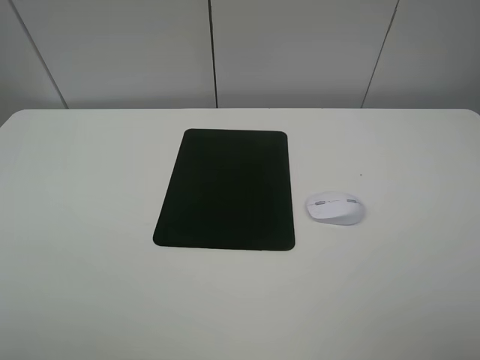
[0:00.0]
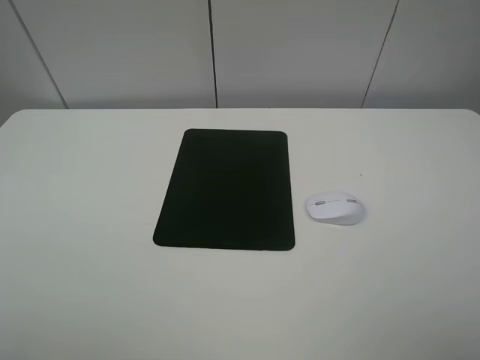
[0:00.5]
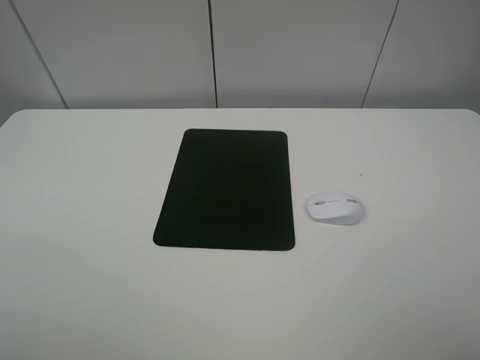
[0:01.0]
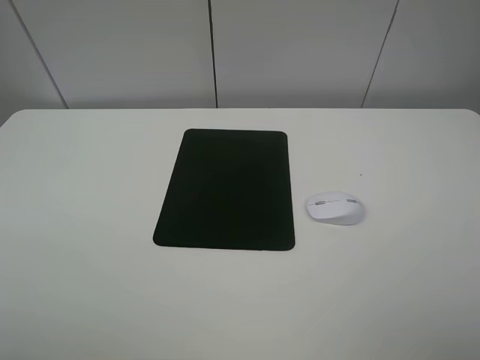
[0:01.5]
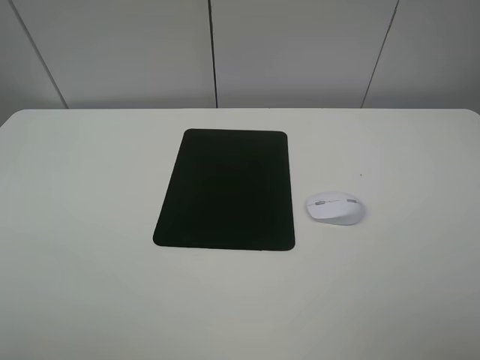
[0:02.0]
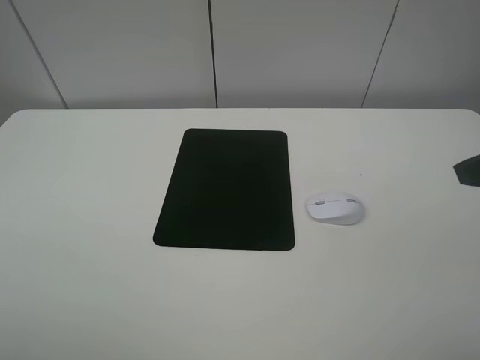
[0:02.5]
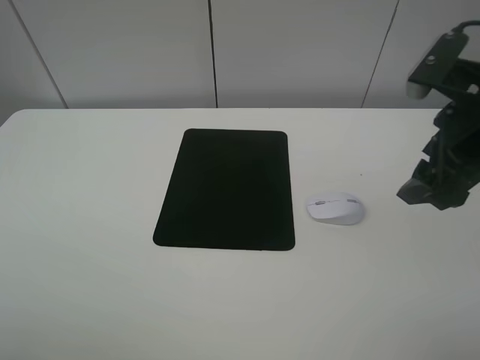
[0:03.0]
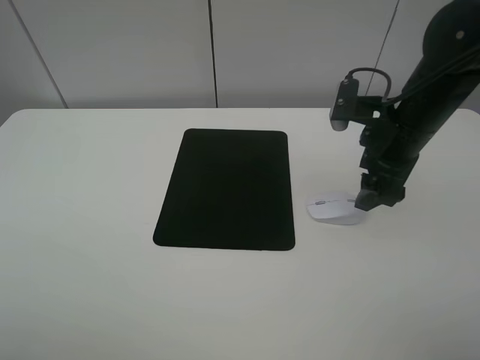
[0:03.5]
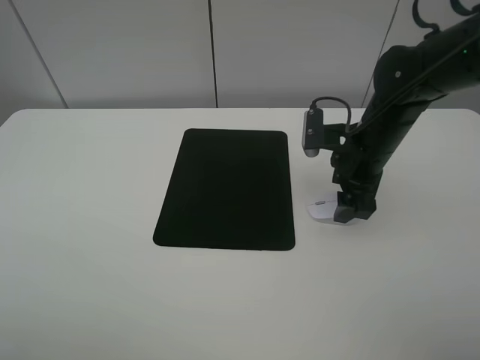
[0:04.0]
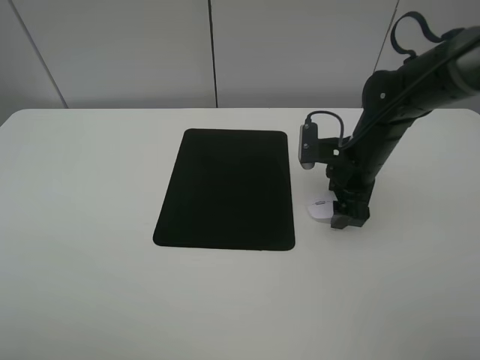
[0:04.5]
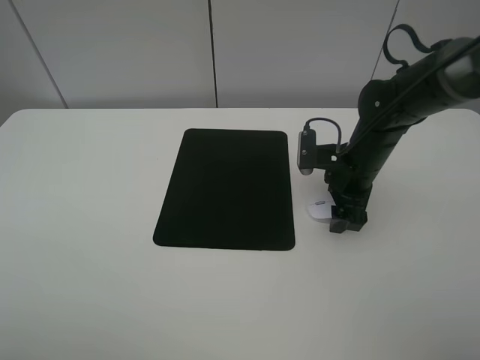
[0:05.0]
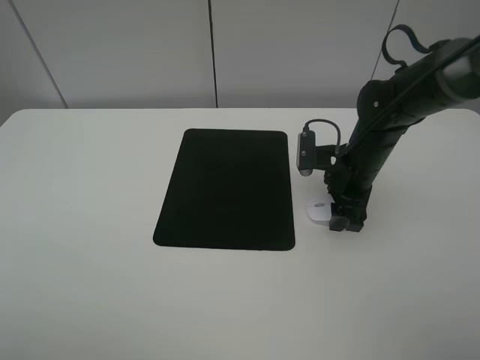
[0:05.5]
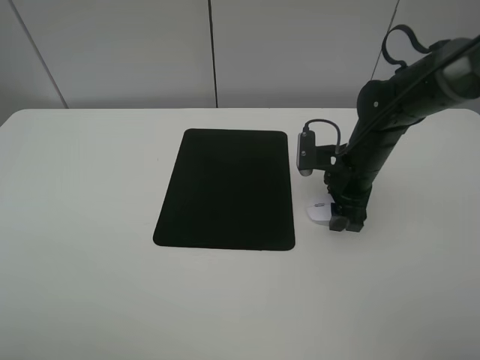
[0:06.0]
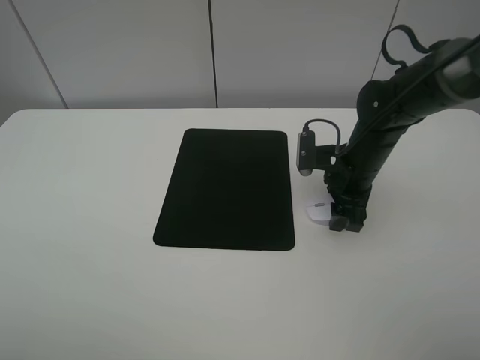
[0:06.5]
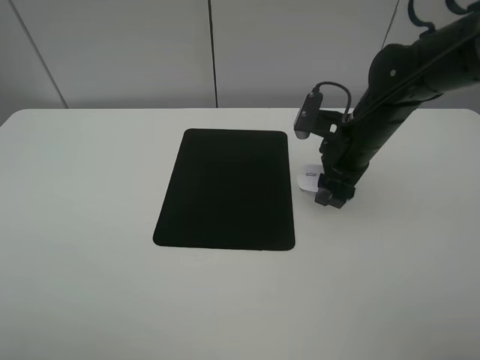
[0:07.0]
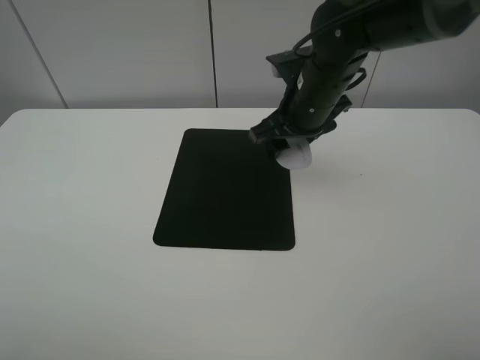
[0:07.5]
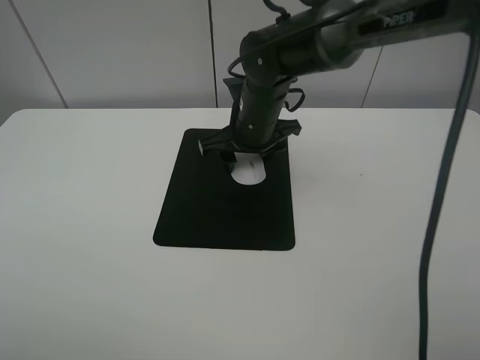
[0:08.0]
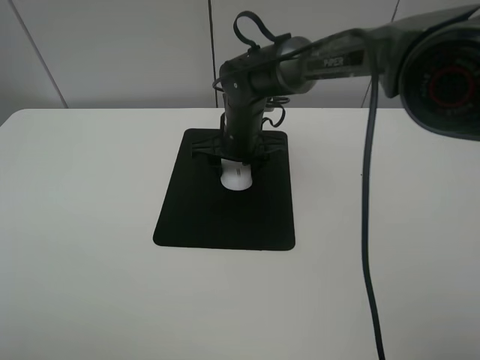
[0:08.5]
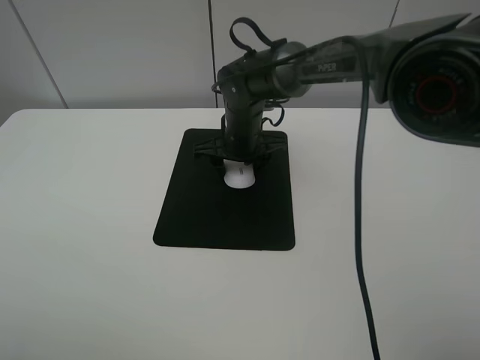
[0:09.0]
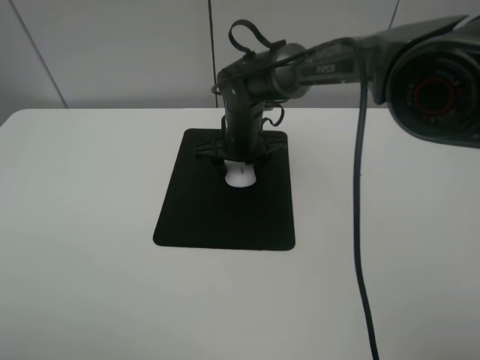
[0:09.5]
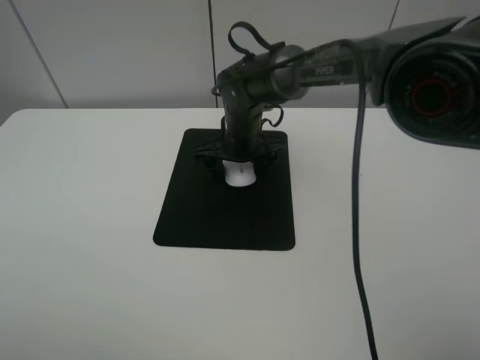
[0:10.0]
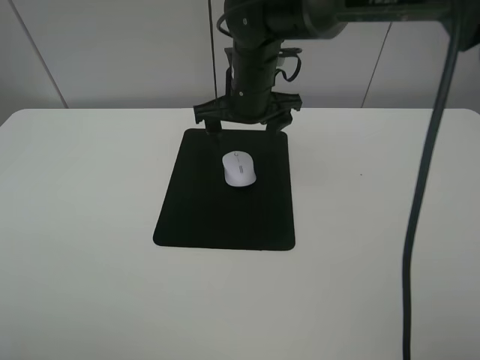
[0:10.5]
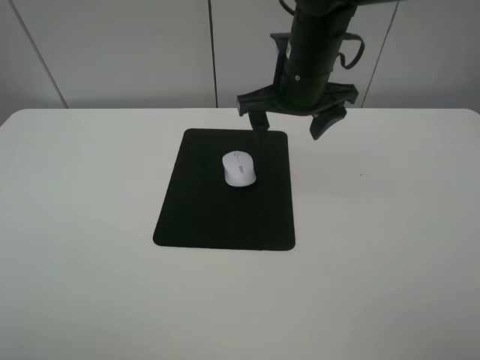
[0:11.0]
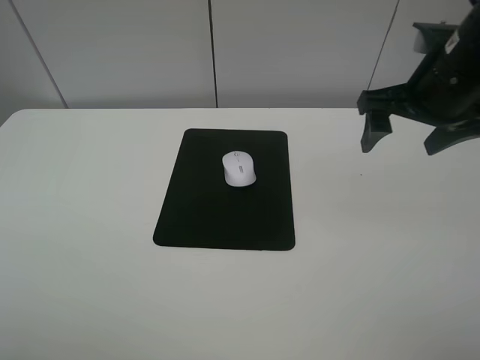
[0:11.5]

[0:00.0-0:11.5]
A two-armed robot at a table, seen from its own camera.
Step, 0:00.0 to 0:06.0: Grasp the mouse with the right gripper.
Step, 0:06.5 to 0:10.0: Place the mouse on the mouse mat with the right gripper.
0:02.0 to 0:04.0: The right gripper travels forward and downward by some 30 cm.
0:04.0 to 0:06.0: The right gripper closes up.
0:06.0 to 0:07.5: The right gripper moves upward and to the left, some 15 cm.
0:07.5 to 0:09.5: The right gripper heads downward, to the left and forward, covering approximately 15 cm.
0:09.5 to 0:11.5: The right gripper goes some 30 cm to the right, upward and backward, and opens its fingers.

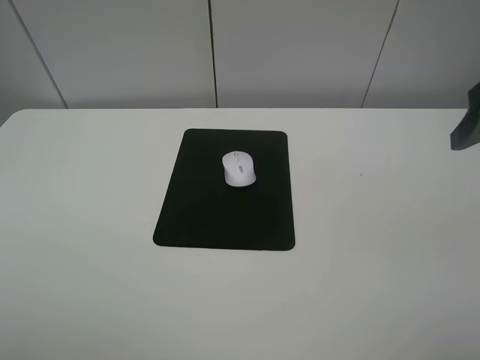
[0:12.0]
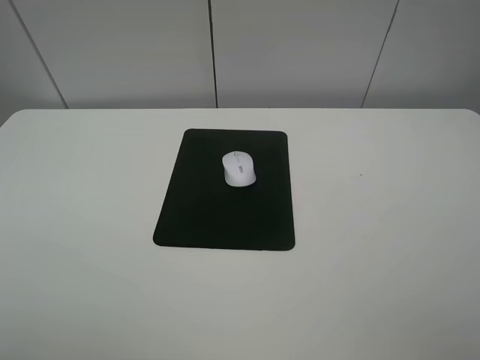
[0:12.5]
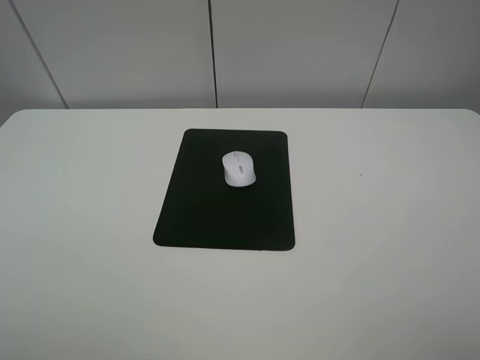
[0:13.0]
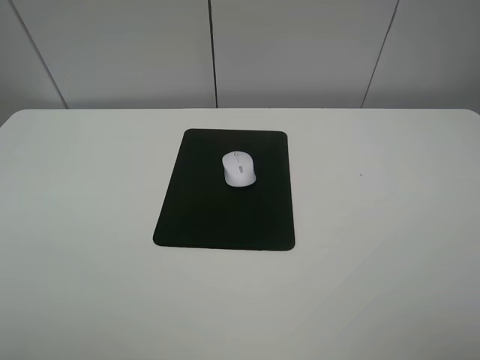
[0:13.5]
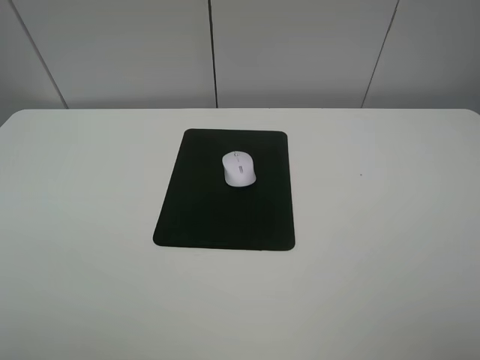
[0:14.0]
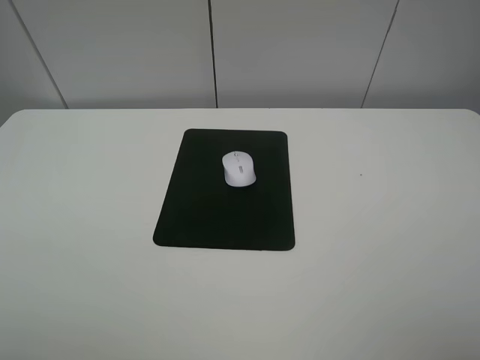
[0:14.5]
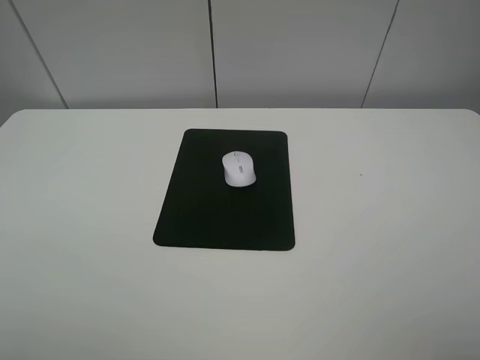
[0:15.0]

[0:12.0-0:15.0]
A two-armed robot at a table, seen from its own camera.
0:12.0 to 0:13.5: The right gripper is displaced backward by approximately 20 cm.
0:13.5 to 0:15.0: Neither gripper changes place.
